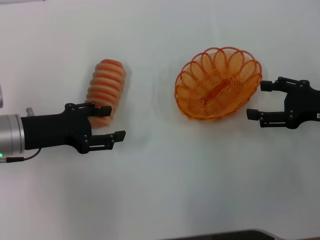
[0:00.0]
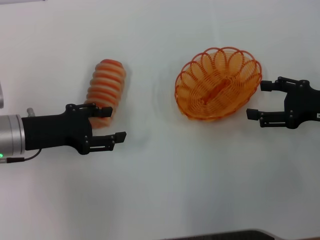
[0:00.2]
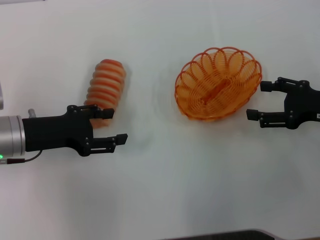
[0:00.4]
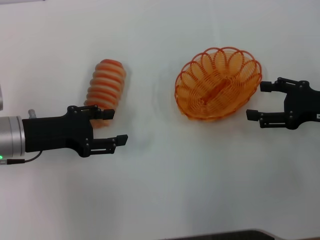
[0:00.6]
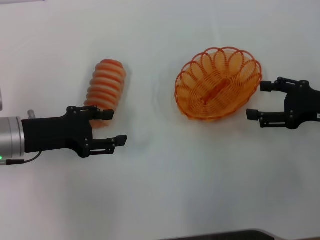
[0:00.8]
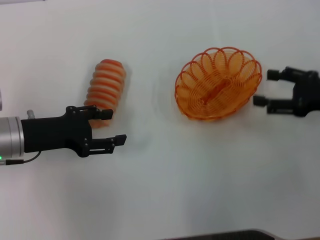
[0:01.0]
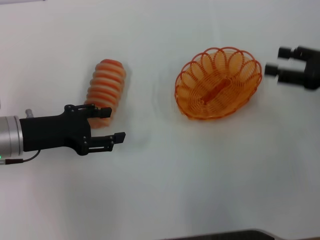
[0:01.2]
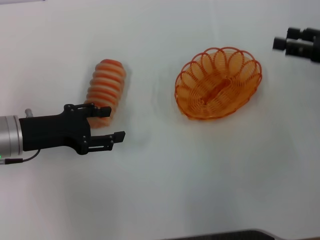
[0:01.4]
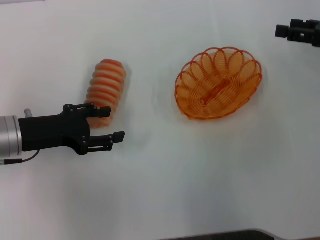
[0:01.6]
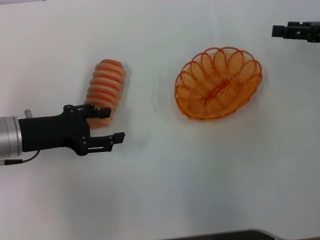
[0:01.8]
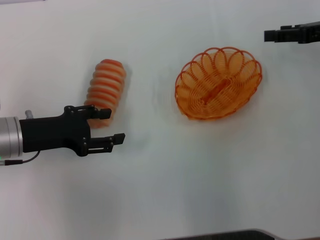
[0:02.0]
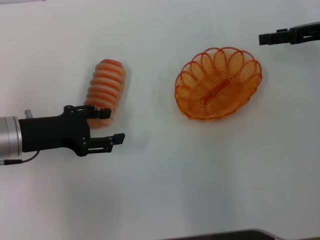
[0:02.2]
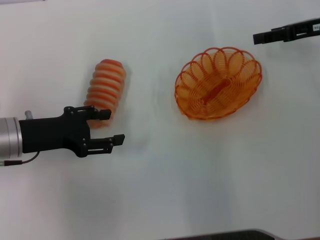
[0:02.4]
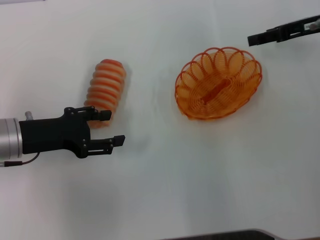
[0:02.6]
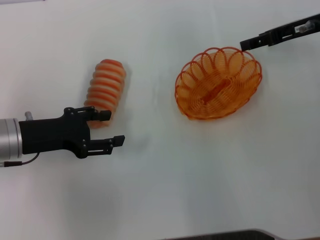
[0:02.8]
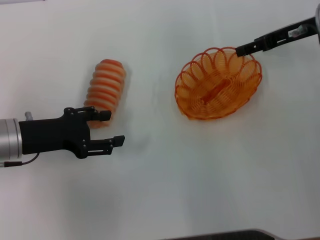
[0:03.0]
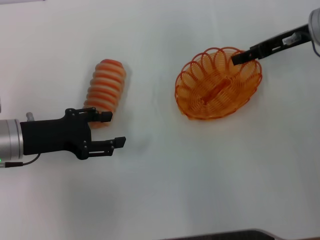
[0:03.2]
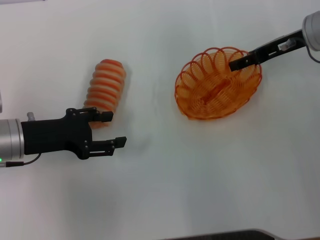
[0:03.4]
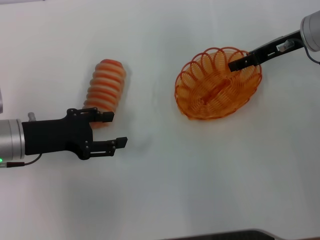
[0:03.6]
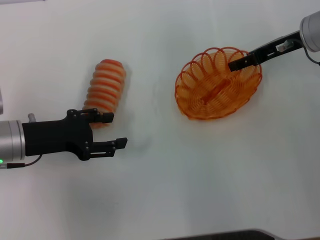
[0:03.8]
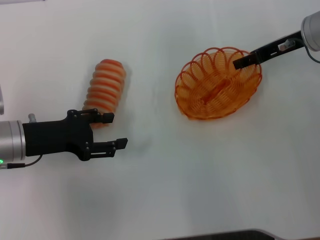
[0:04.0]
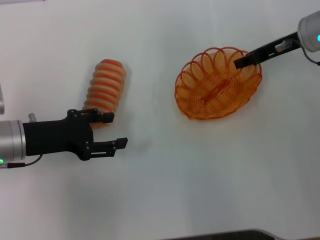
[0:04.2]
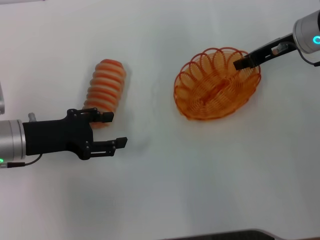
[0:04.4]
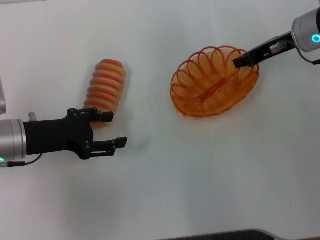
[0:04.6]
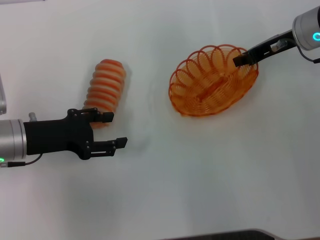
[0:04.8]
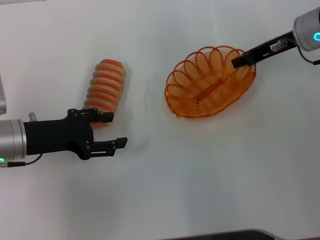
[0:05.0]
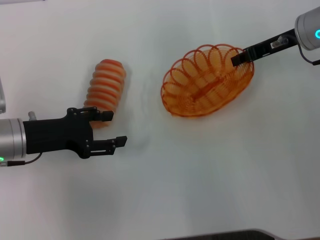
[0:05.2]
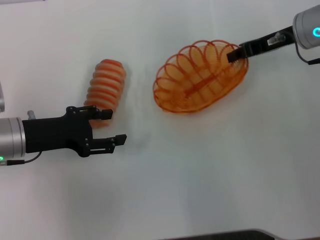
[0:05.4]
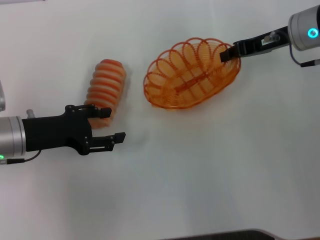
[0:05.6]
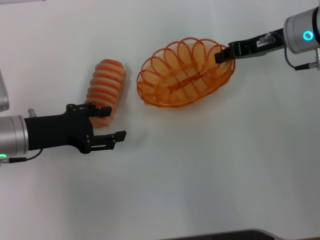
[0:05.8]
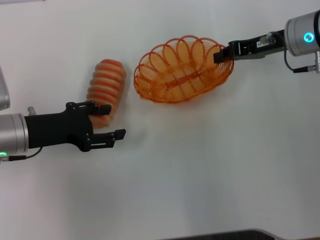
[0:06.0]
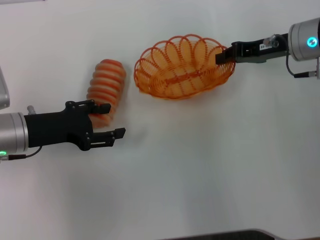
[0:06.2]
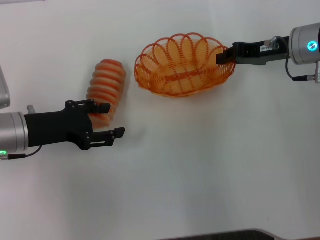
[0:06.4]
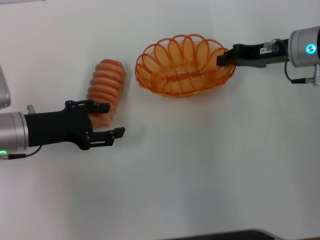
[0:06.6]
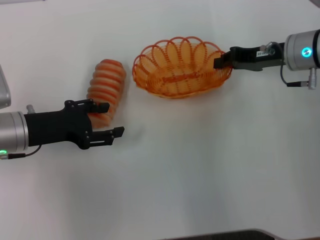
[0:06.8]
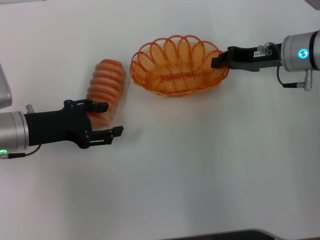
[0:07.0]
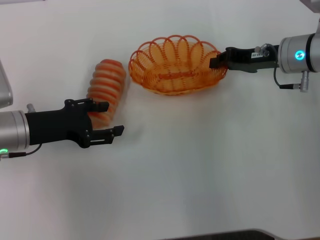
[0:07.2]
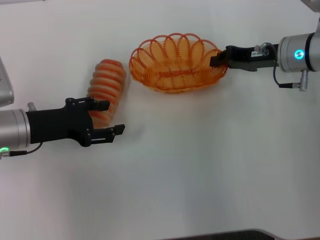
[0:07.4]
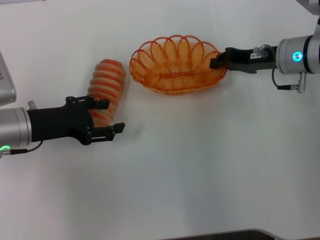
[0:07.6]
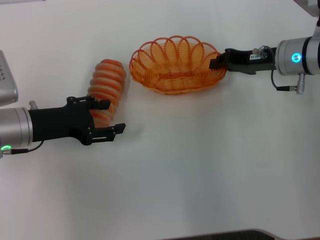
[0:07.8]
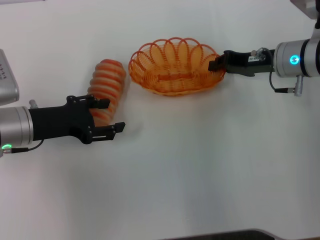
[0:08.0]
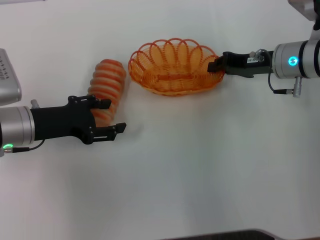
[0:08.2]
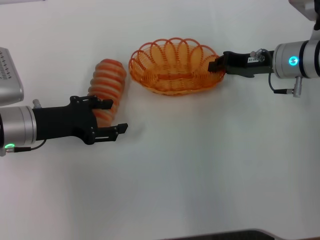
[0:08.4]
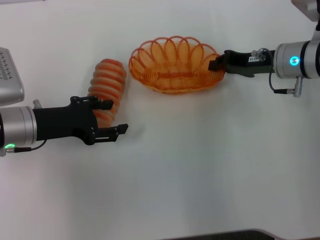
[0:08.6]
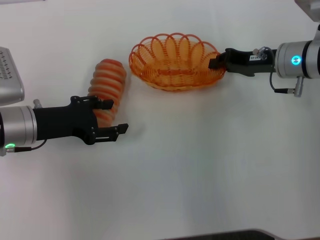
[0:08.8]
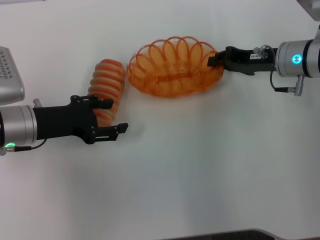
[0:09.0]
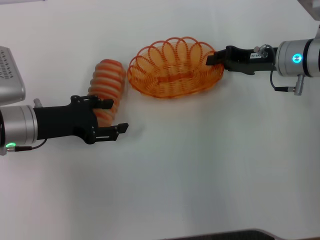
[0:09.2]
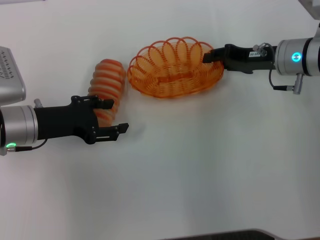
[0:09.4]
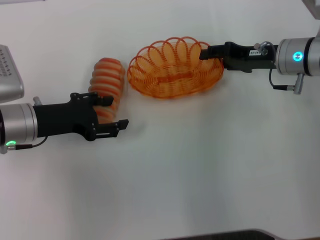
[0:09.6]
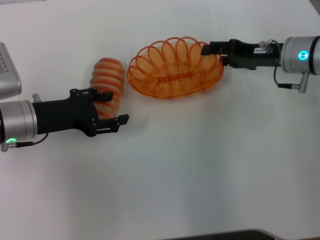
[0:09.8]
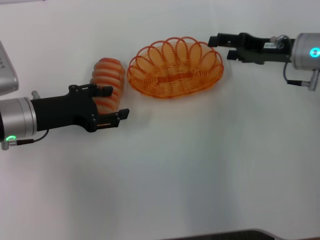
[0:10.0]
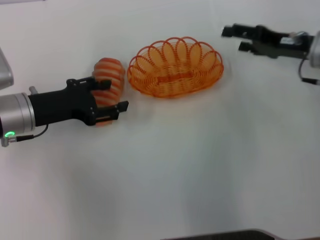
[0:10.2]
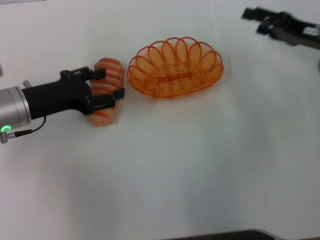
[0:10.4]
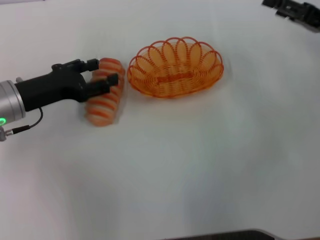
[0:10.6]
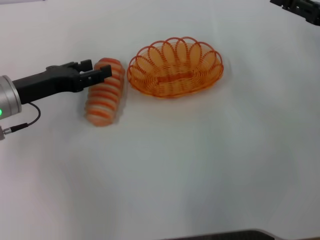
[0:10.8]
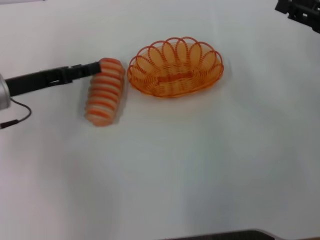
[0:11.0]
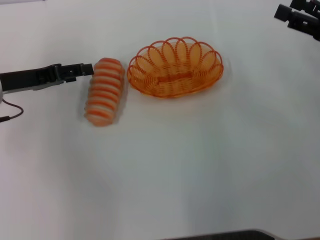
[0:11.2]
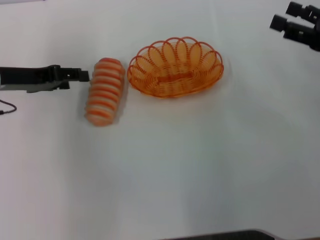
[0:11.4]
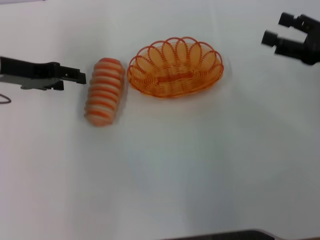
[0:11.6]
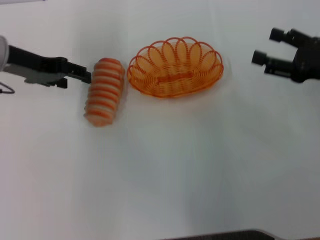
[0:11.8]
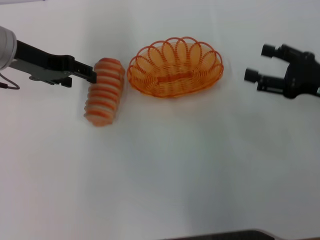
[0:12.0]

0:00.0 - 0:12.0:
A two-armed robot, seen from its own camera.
Step, 0:00.0 - 0:05.2: Pick up the basket with the right gripper.
Step, 0:05.6 - 0:10.0: Place the basket in the center of view with the right gripper.
0:00.0 - 0:01.6: The right gripper travels forward and upward by some 10 cm.
0:01.6 - 0:03.0: The right gripper shifts approximately 10 cm to the left and forward.
0:03.0 - 0:04.4: The right gripper closes up.
0:06.0 - 0:07.6: The grippers stay close to where they were, moving slightly.
0:07.6 - 0:09.0: Both grippers stay about where they are.
0:09.0 - 0:10.4: The right gripper shifts approximately 5 cm to the right, and opens up.
0:10.4 - 0:12.0: The right gripper moves backward, about 5 cm; the left gripper is displaced upward and forward by about 10 cm.

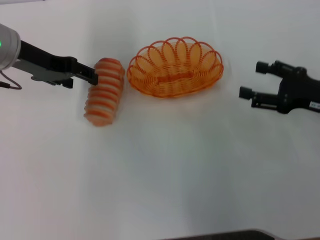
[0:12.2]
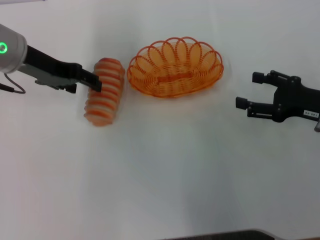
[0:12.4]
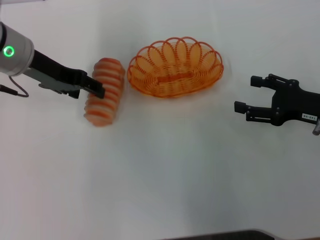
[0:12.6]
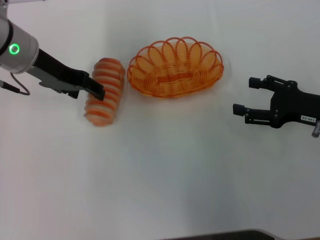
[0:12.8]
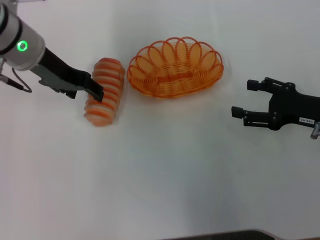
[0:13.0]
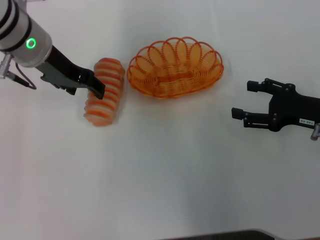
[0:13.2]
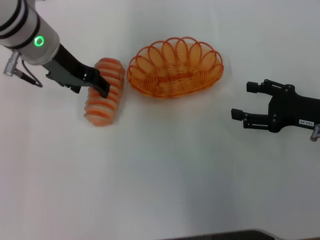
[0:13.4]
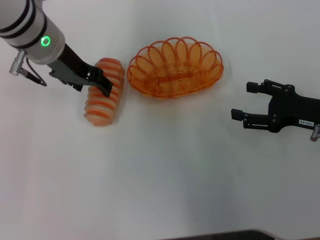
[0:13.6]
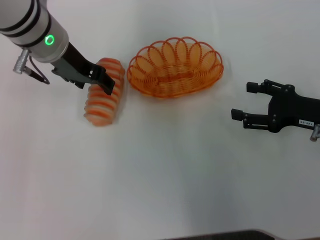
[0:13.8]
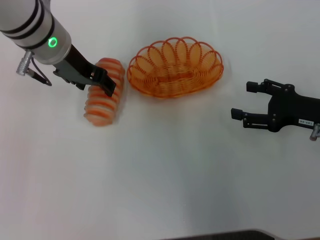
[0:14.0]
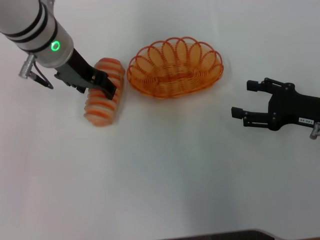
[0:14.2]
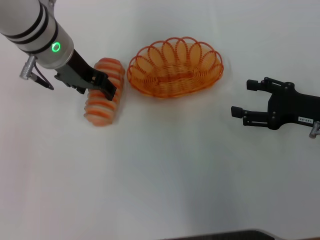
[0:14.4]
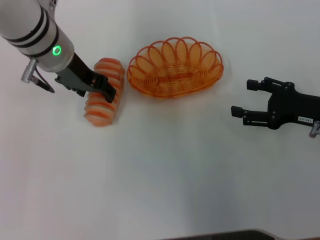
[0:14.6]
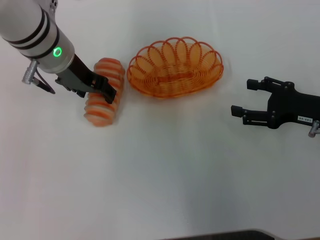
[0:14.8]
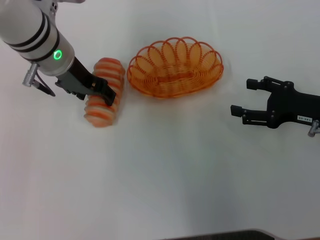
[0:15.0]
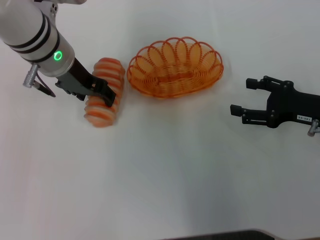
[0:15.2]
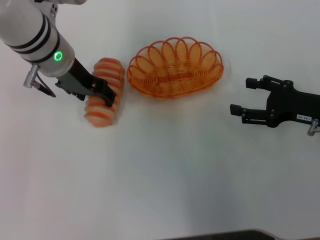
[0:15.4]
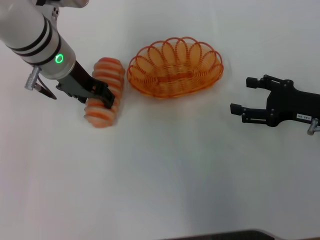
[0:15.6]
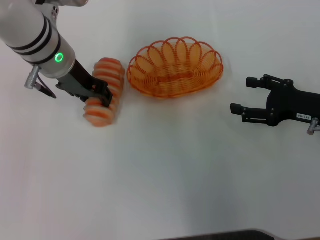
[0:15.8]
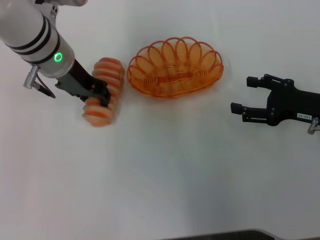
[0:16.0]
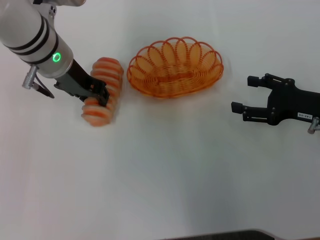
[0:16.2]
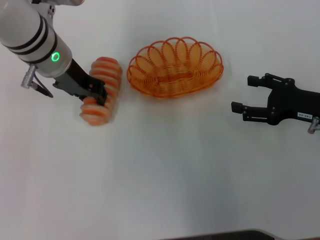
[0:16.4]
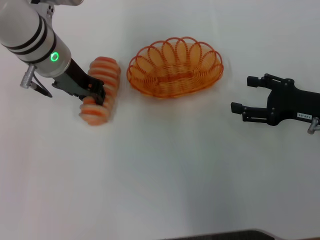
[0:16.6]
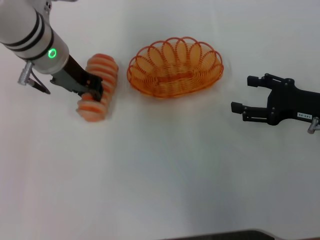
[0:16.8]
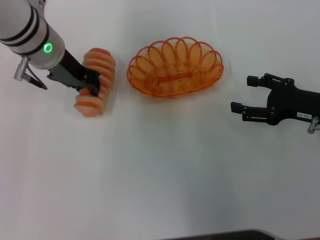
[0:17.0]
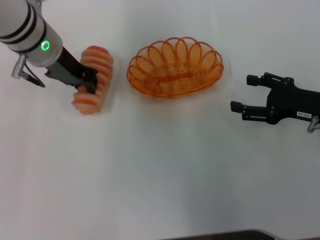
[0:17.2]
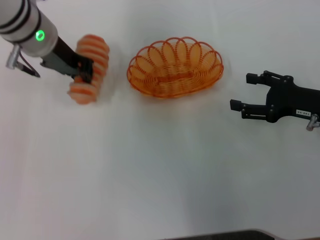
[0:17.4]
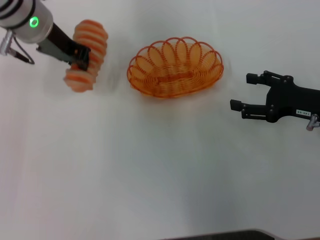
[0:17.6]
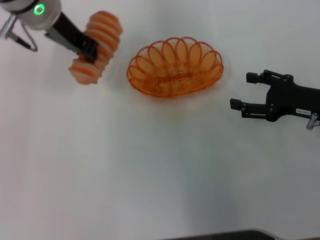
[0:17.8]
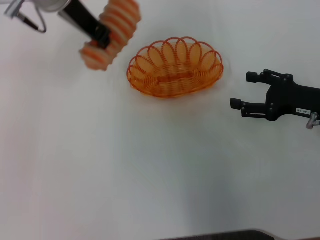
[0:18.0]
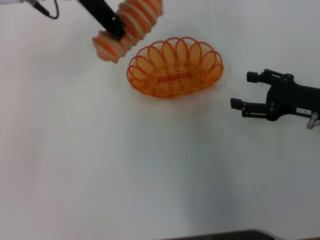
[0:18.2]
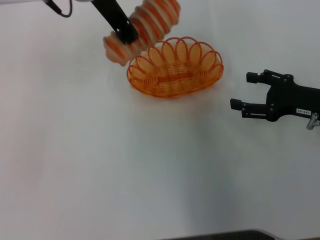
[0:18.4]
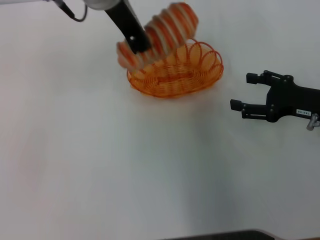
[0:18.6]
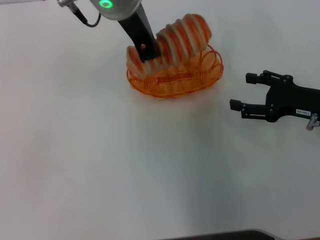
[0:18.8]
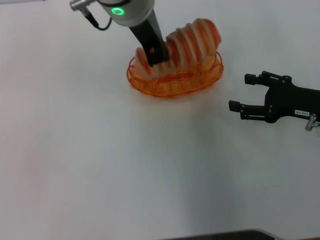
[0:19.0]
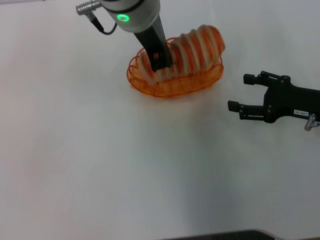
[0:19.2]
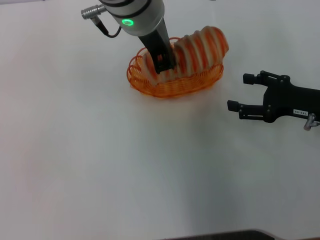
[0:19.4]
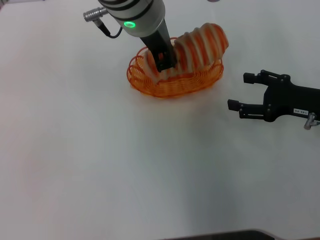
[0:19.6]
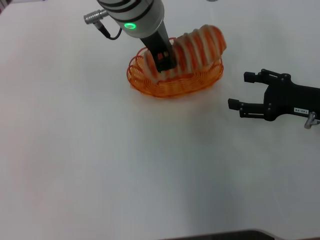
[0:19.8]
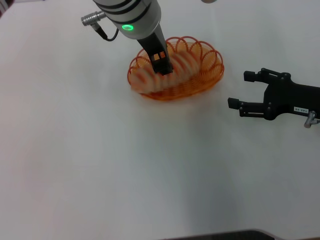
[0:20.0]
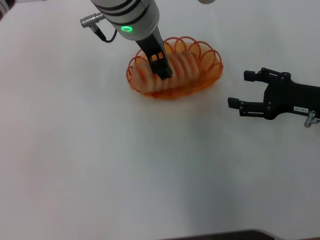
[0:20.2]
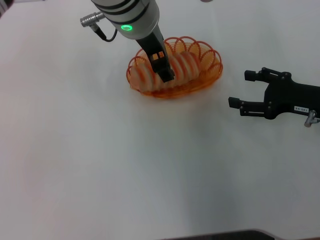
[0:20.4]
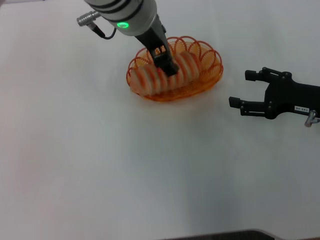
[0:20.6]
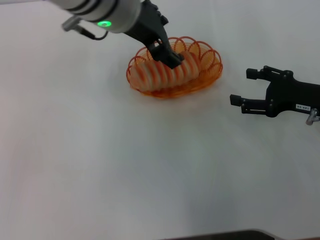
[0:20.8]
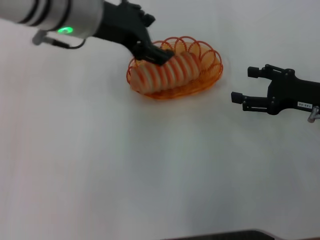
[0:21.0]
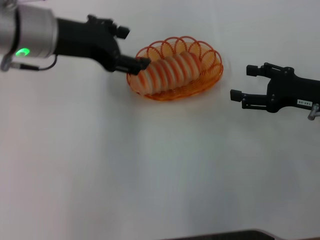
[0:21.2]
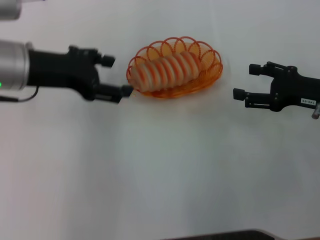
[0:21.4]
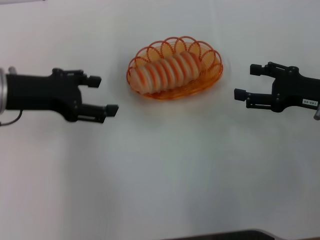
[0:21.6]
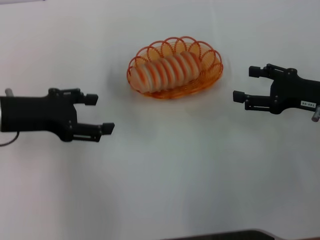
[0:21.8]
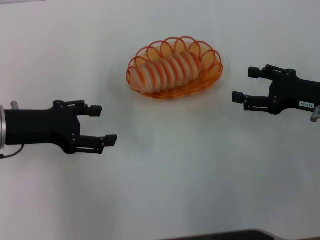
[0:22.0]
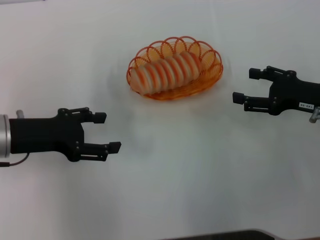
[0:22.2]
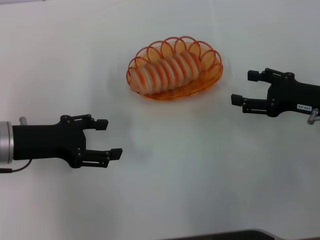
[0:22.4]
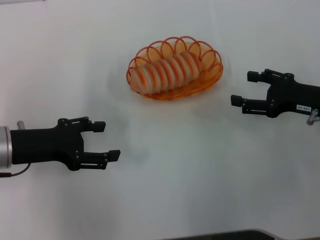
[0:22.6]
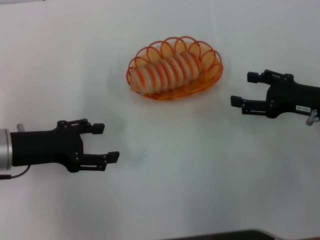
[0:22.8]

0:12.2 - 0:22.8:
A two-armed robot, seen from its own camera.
Step, 0:12.2 - 0:17.6: Pick up the long bread with the left gripper.
Step, 0:18.0 - 0:21.0: Place the long bread into the basket with the left gripper.
0:12.2 - 0:13.8: The left gripper moves to the right, some 10 cm.
0:13.8 - 0:15.2: The grippers move only a little.
0:15.2 - 0:16.8: The left gripper closes its fingers.
0:16.8 - 0:18.2: The left gripper shifts about 10 cm upward.
0:18.2 - 0:19.8: The left gripper heads to the right, covering approximately 10 cm.
0:19.8 - 0:21.2: The left gripper goes some 15 cm to the left, and opens.
0:21.2 - 0:22.8: The left gripper is displaced downward, to the left and backward by approximately 15 cm.
